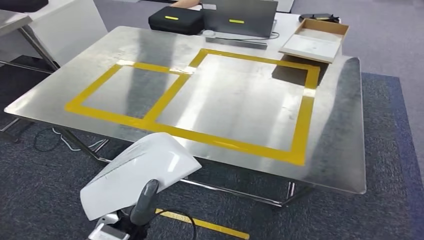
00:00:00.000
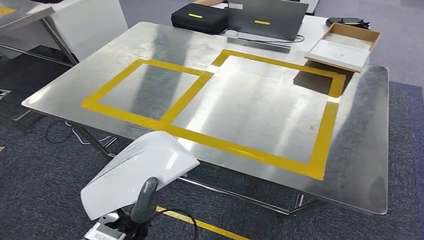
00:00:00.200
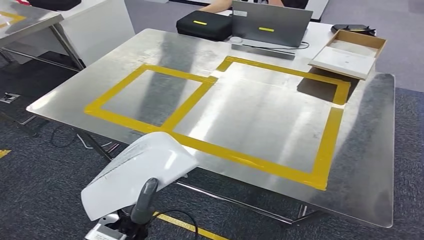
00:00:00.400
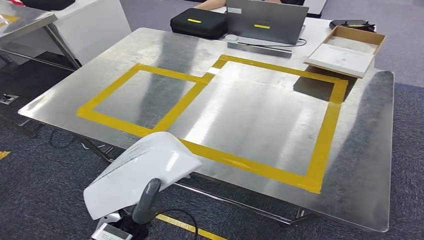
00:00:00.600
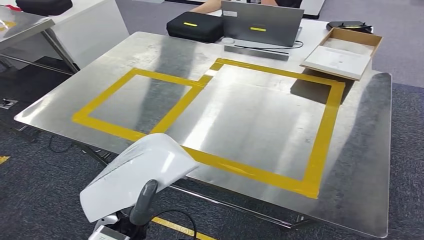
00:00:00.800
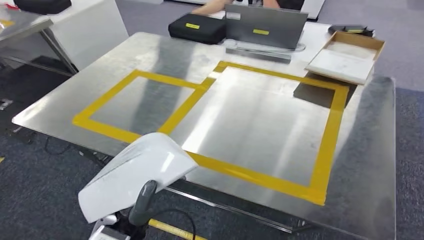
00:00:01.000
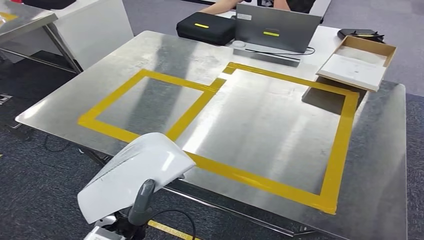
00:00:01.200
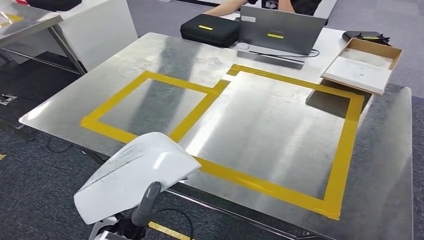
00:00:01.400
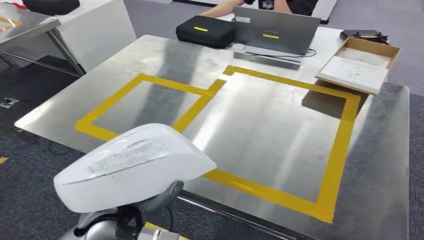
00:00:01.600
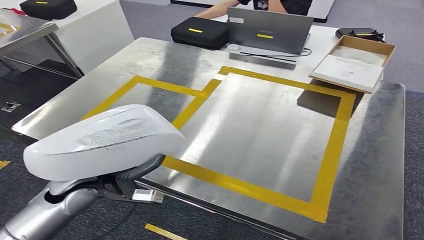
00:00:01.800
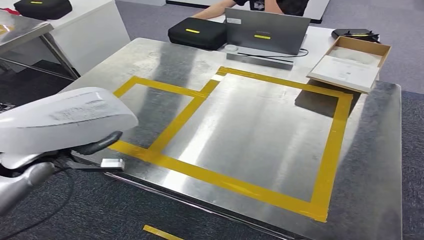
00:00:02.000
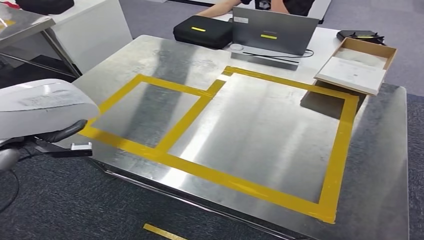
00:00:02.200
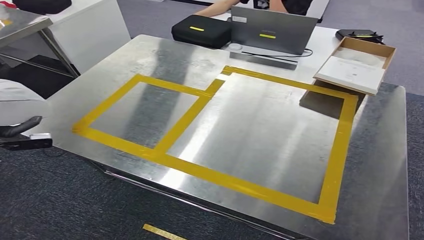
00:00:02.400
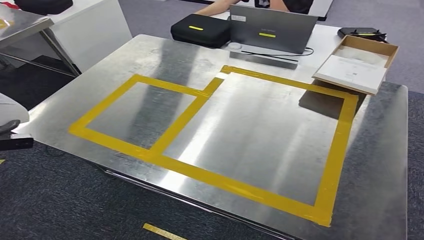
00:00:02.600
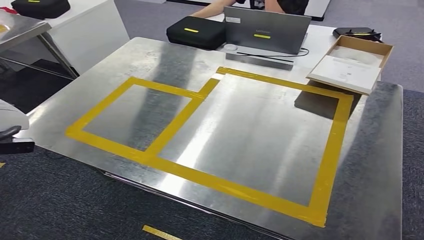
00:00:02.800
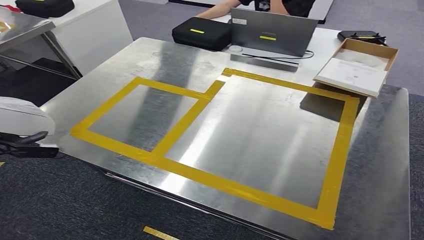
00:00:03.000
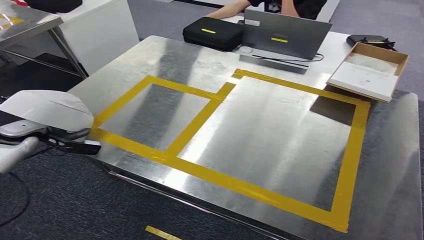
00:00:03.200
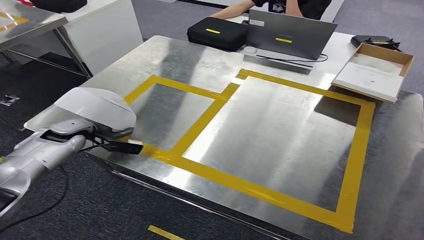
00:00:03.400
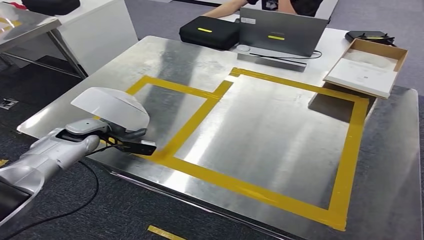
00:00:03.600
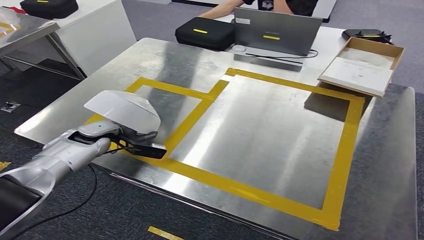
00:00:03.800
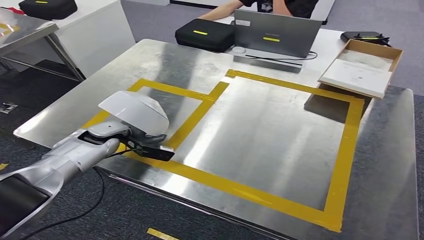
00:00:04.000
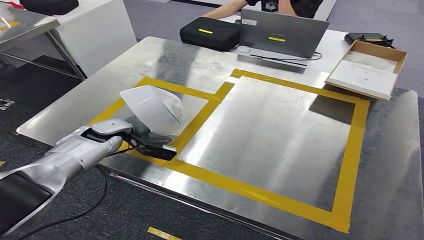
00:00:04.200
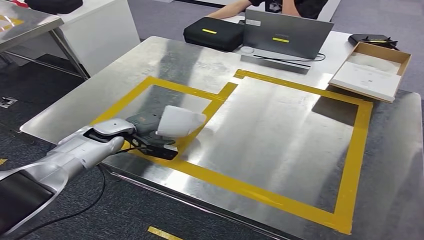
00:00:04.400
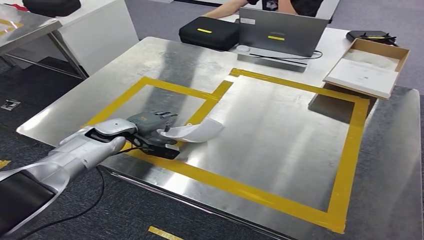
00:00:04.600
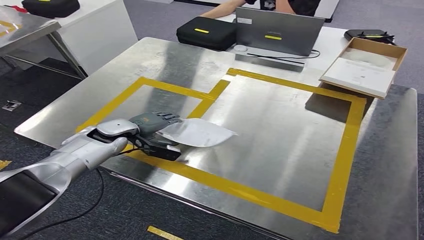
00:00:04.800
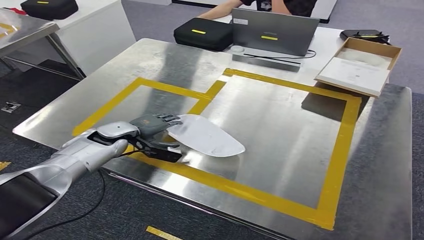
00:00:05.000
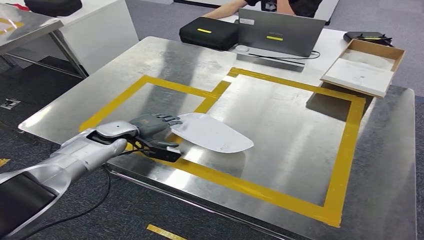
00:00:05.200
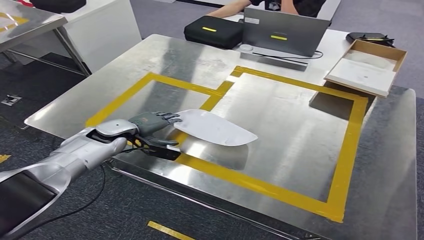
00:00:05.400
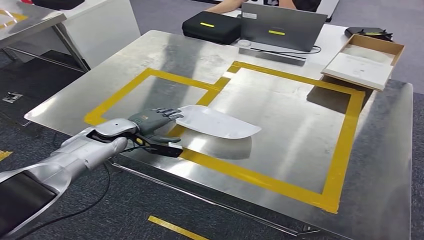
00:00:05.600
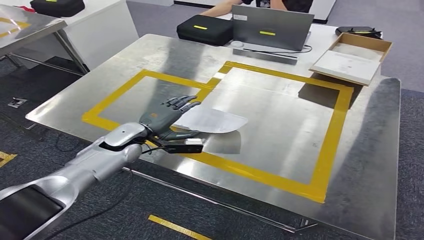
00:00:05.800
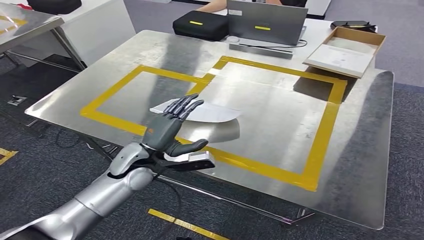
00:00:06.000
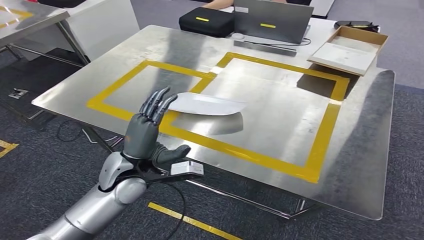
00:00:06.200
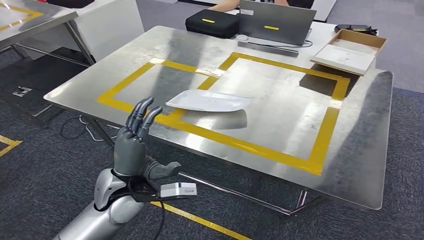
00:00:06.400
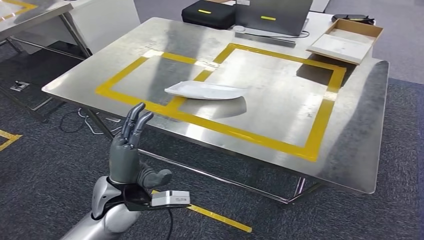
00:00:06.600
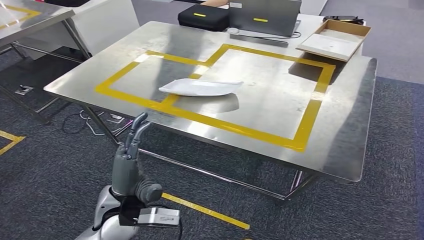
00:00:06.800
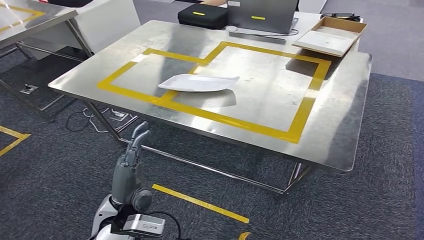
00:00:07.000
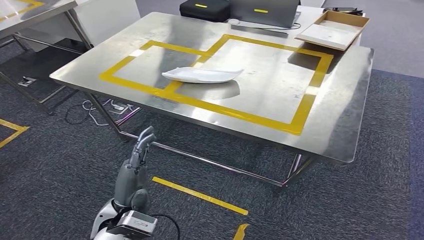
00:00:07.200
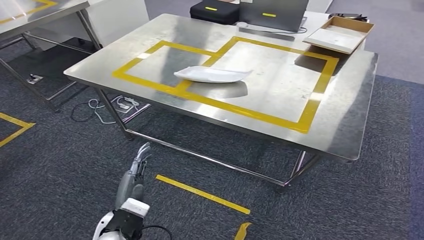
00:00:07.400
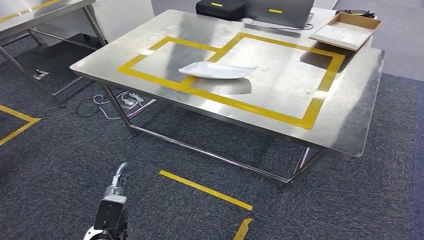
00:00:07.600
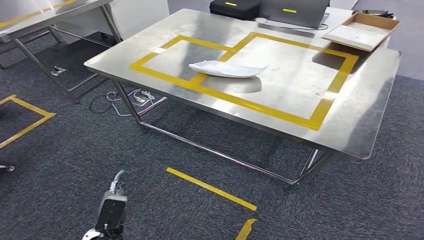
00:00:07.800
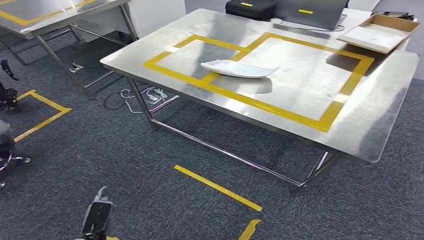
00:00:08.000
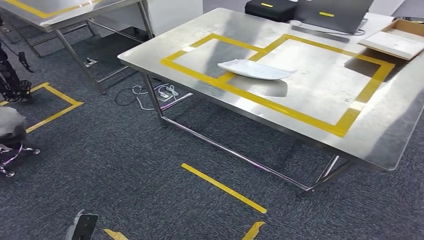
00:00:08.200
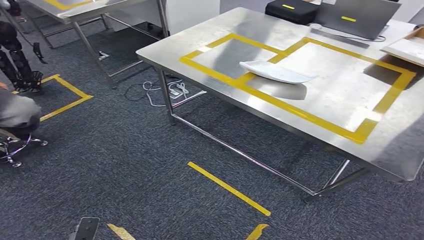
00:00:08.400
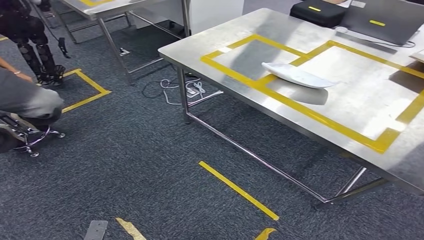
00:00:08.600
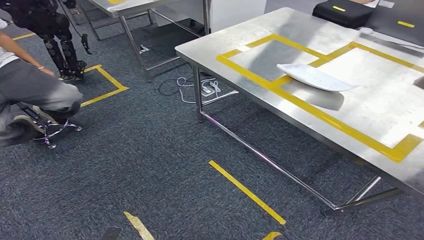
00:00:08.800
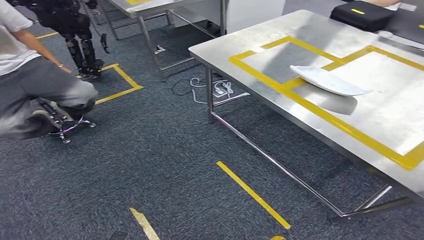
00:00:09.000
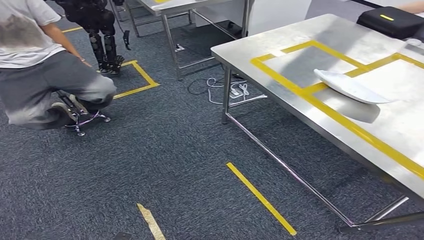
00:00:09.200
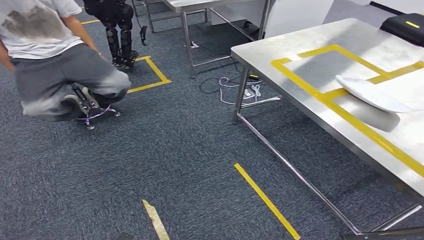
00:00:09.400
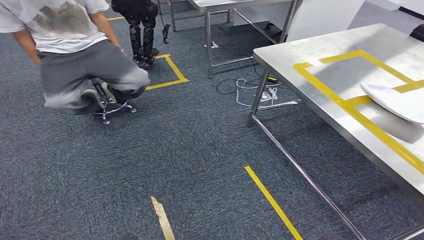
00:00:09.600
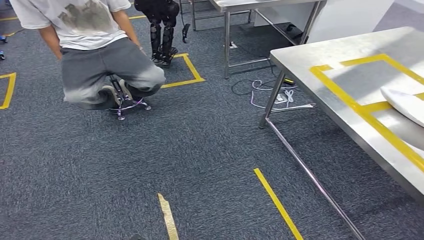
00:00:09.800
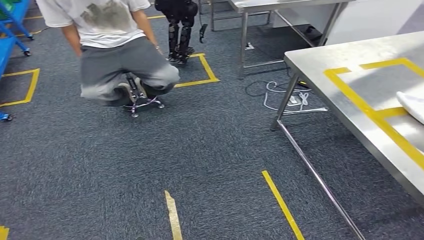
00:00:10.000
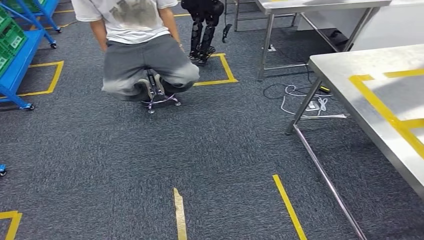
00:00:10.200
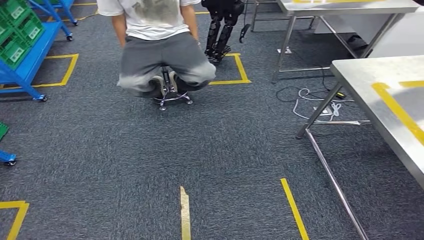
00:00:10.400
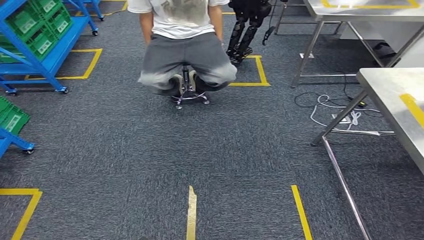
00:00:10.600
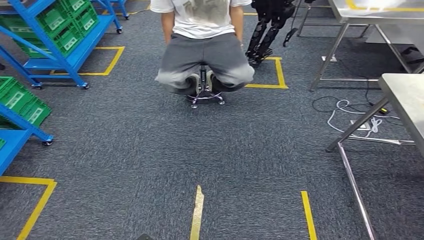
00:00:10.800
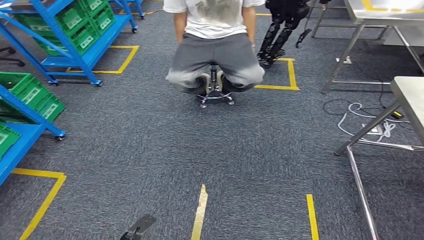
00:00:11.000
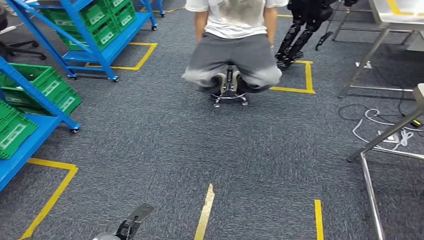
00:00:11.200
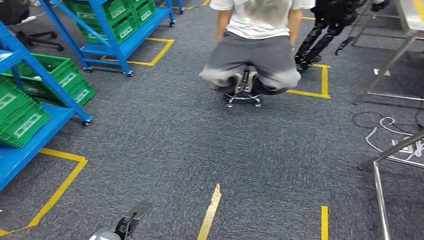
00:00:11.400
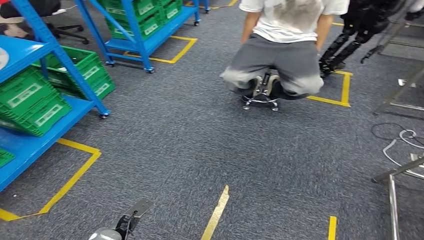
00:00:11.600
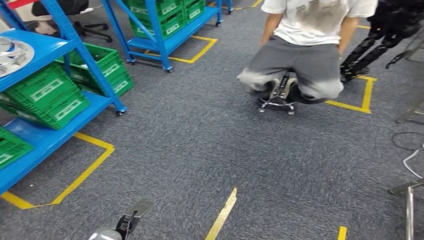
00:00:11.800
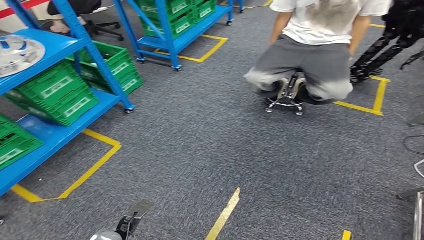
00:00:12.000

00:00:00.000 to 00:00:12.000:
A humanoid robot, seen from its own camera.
Step, 00:00:00.000 to 00:00:06.000: Insert the small component into the corresponding slot on the workbench.

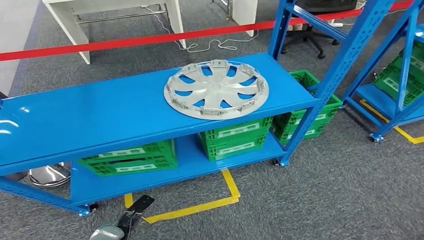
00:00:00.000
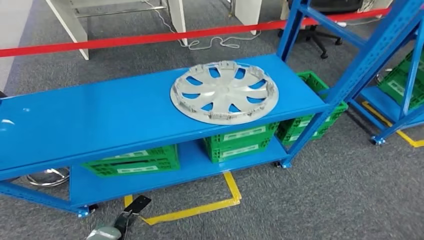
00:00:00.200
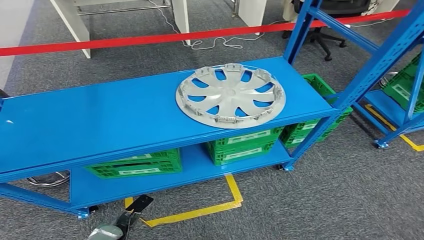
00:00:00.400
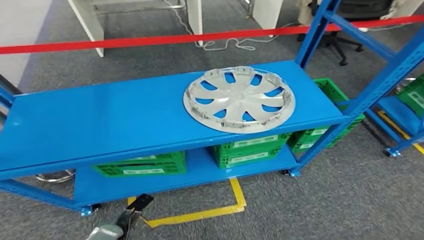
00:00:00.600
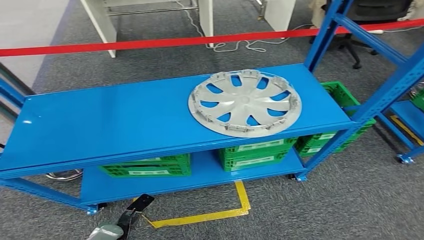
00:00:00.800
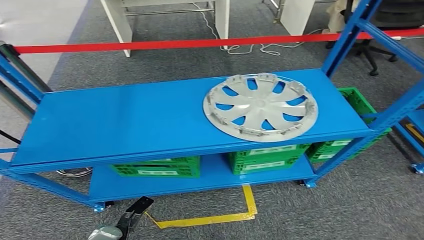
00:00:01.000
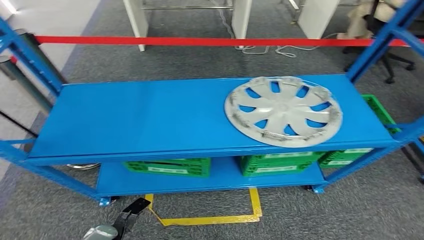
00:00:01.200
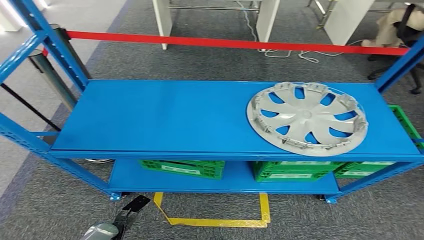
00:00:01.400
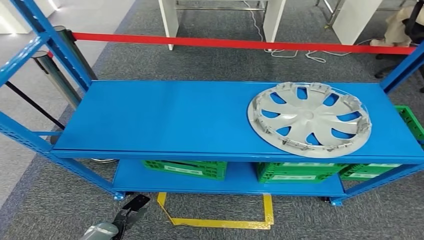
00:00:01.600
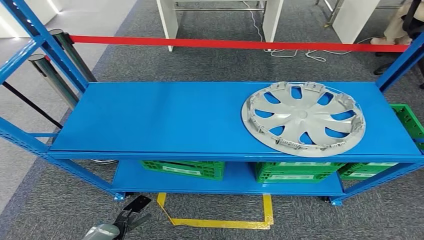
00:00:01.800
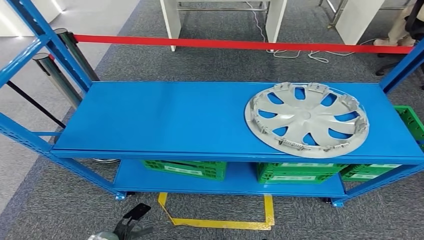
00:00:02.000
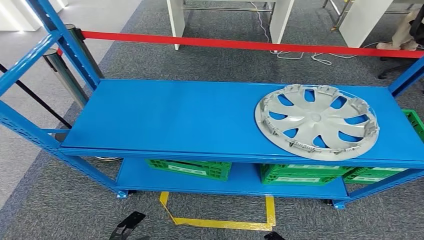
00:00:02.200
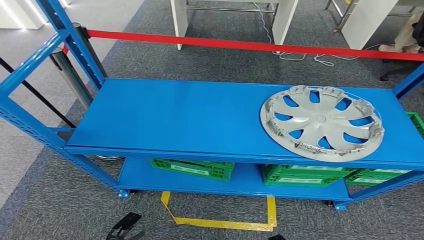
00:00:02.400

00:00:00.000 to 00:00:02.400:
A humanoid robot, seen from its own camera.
Step, 00:00:00.000 to 00:00:02.400: Move to the initial position of the workbench.
